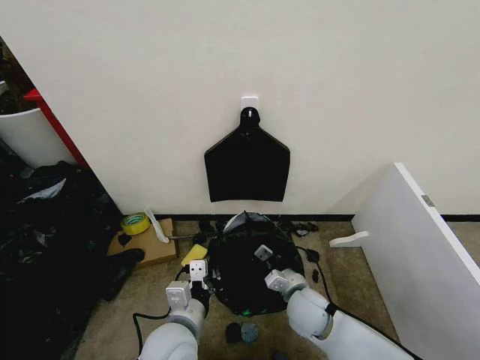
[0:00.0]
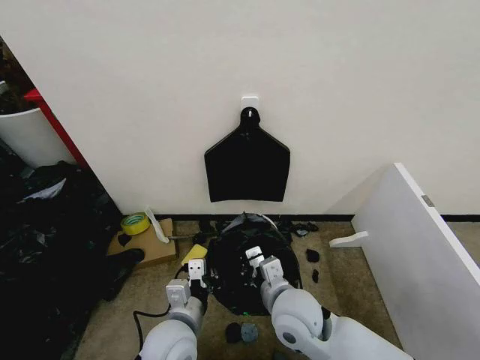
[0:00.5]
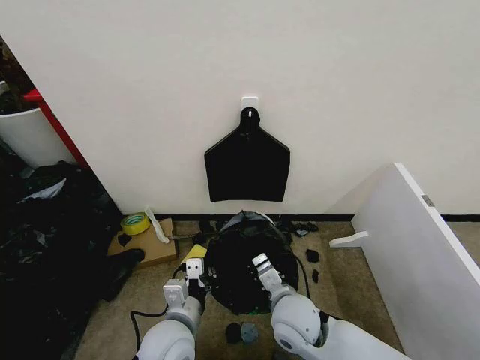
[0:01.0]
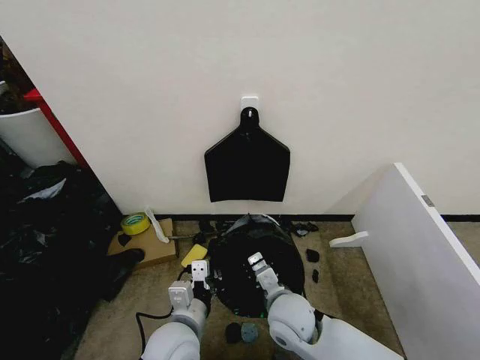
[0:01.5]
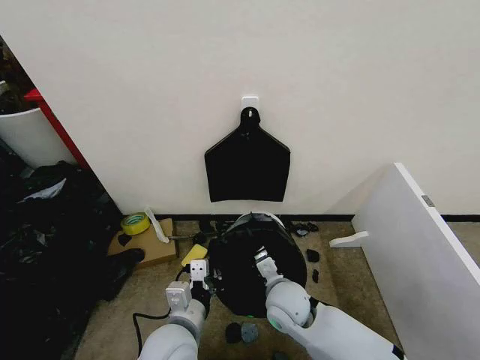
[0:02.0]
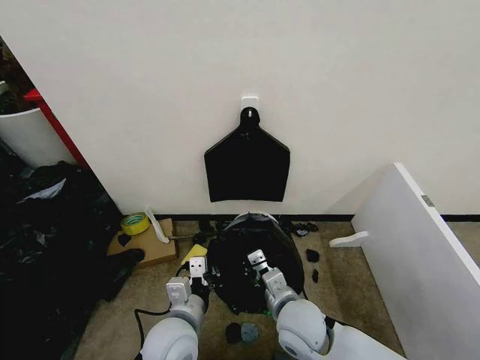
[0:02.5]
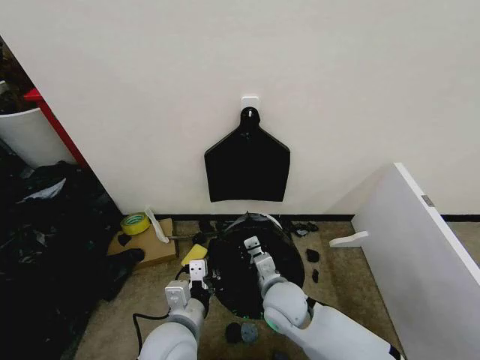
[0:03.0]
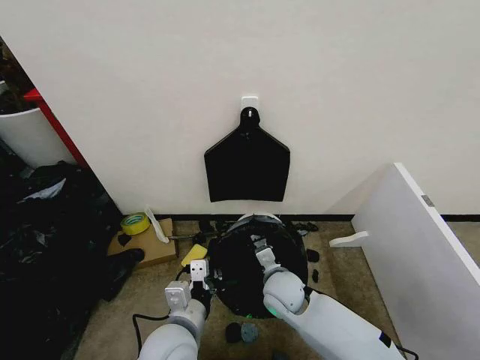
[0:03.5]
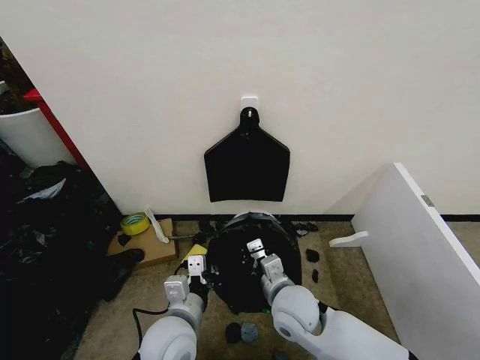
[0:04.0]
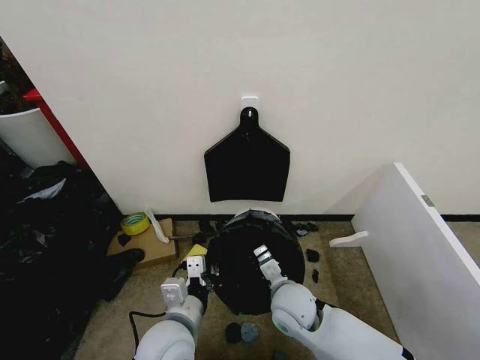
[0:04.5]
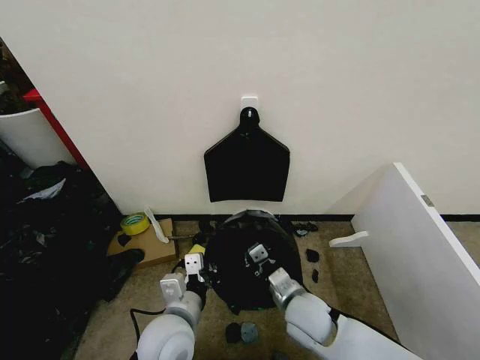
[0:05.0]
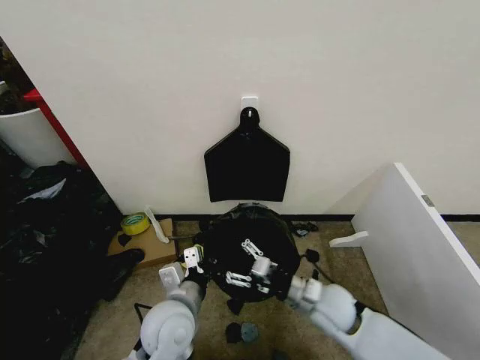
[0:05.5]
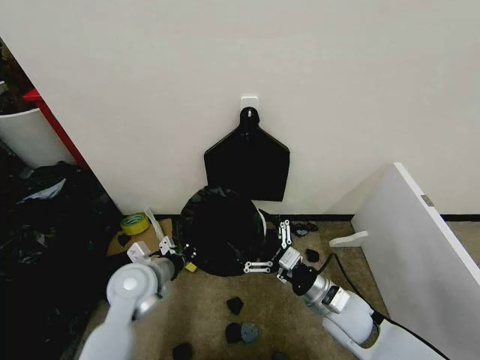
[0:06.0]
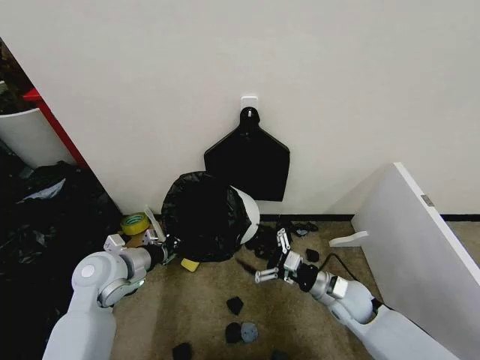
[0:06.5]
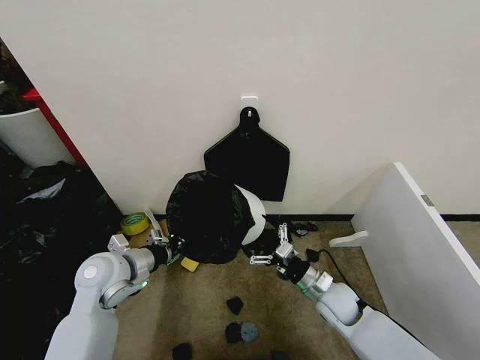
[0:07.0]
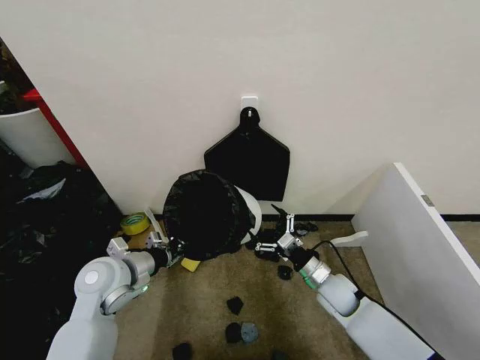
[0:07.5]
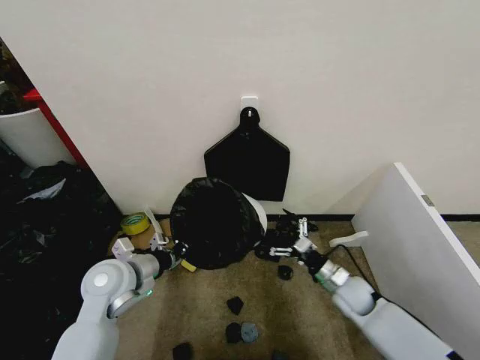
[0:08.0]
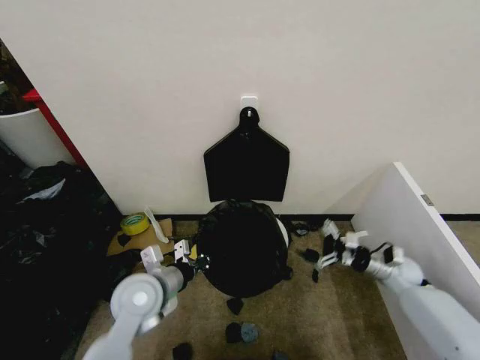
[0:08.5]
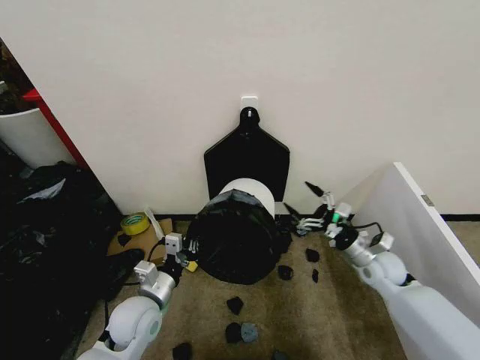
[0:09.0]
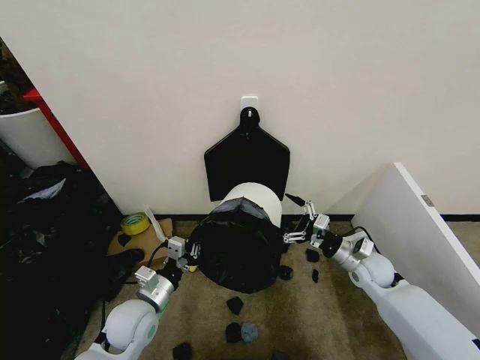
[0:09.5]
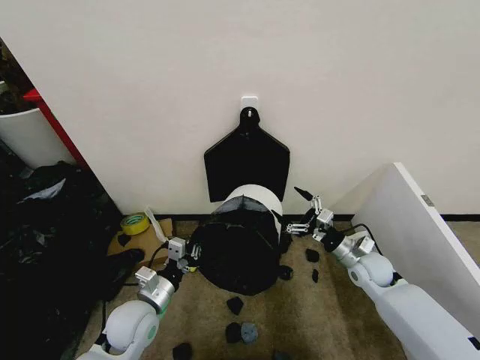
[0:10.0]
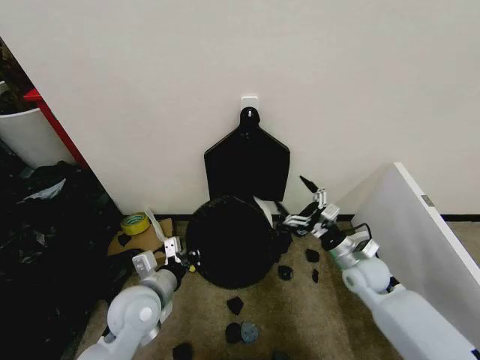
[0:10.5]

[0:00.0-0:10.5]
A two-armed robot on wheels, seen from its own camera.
Task of the whole recording: Place the garbage bag over the trash bin.
0:00.0 to 0:02.0: The right gripper travels to the left by approximately 5 cm.
0:02.0 to 0:04.0: The right gripper moves forward and backward over some 10 cm, changing direction 2 times.
0:04.0 to 0:06.5: The left gripper moves to the left and forward, some 20 cm; the right gripper moves to the right and downward, approximately 15 cm, and opens.
0:06.5 to 0:08.5: The right gripper travels to the right and forward by roughly 20 cm; the left gripper moves to the right, about 10 cm.
0:08.5 to 0:10.5: The right gripper is displaced to the left and upward by some 15 cm.

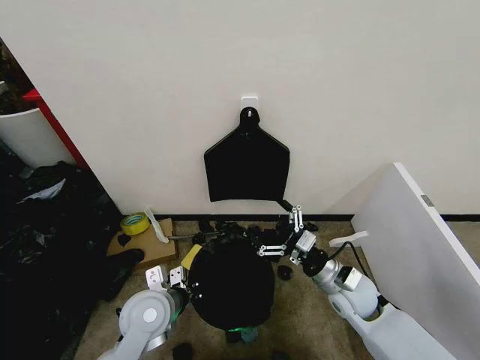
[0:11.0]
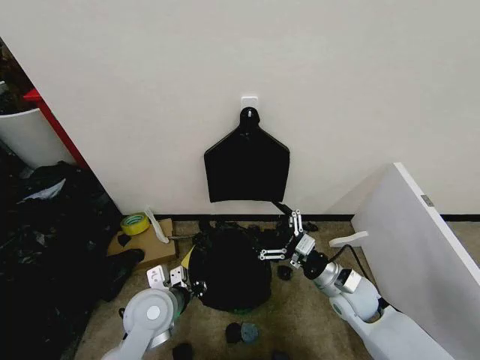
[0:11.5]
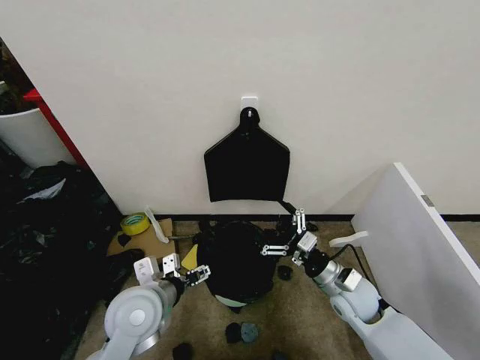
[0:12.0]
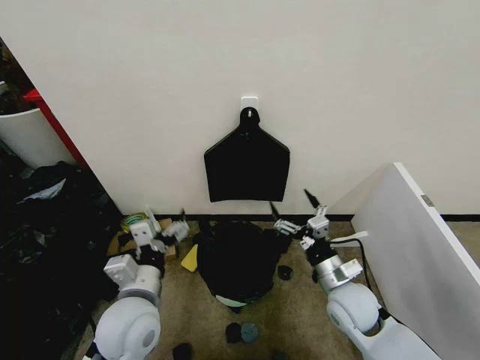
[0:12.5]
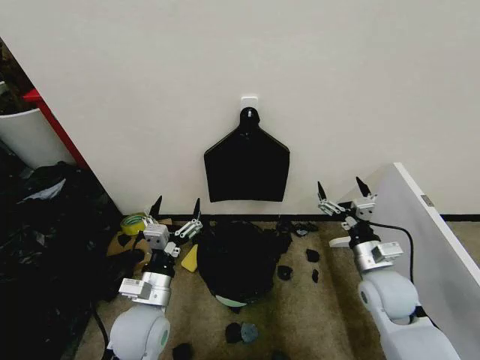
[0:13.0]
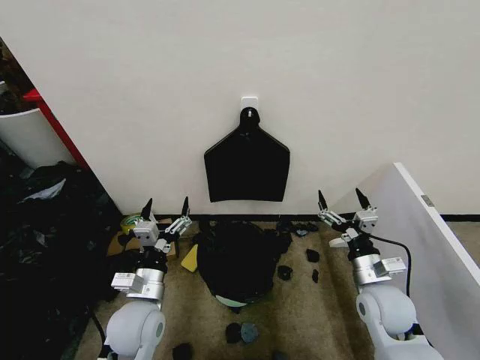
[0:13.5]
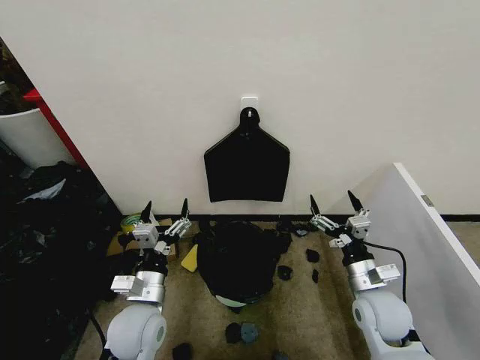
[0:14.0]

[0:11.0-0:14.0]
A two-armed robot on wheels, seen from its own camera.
Task of the whole recording: Place the garbage bag over the trash bin.
0:11.0 to 0:12.5: The left gripper travels upward by about 5 cm, and opens up.
0:12.5 to 0:14.0: The right gripper is displaced to the right by some 5 cm; the left gripper moves downward, about 5 cm.
